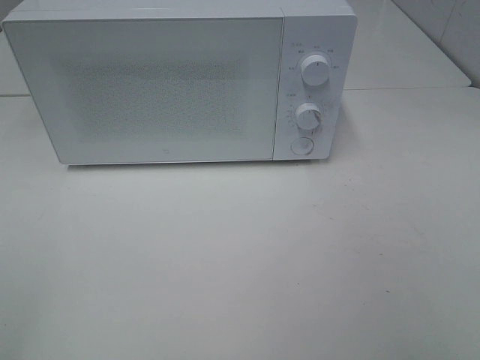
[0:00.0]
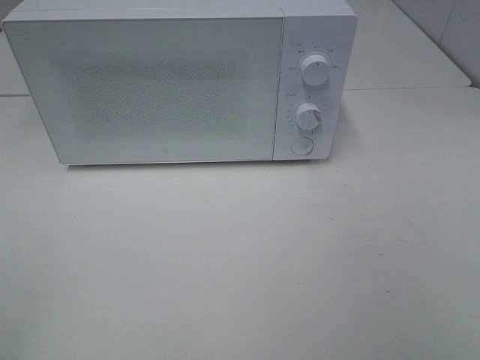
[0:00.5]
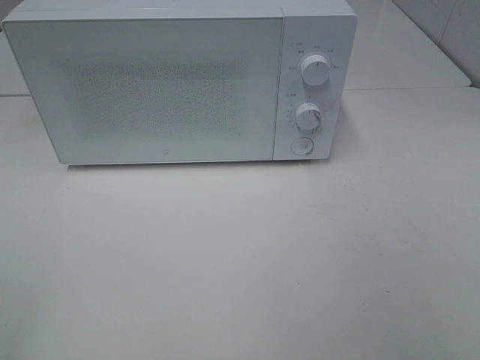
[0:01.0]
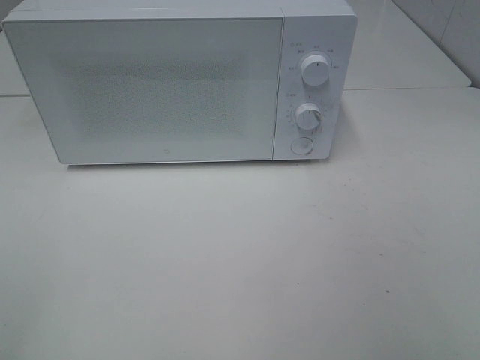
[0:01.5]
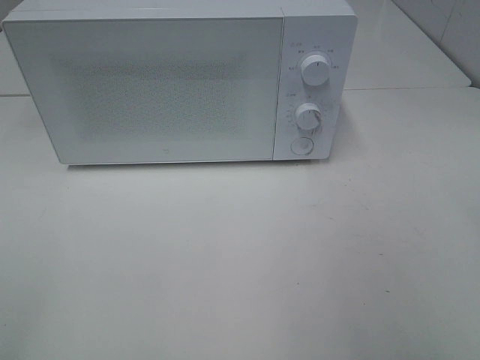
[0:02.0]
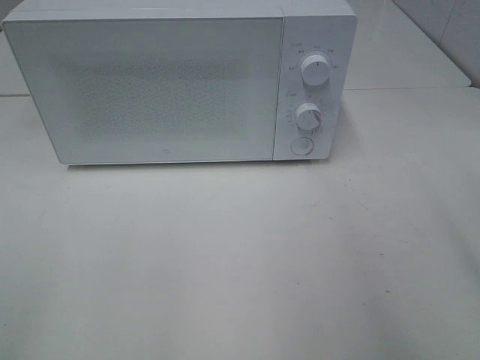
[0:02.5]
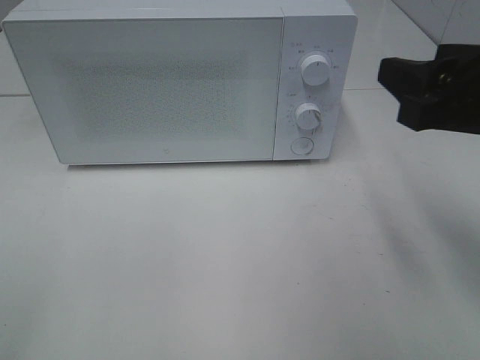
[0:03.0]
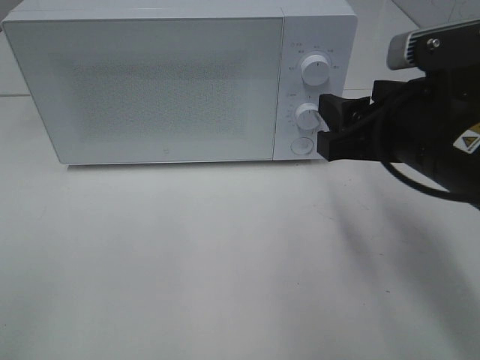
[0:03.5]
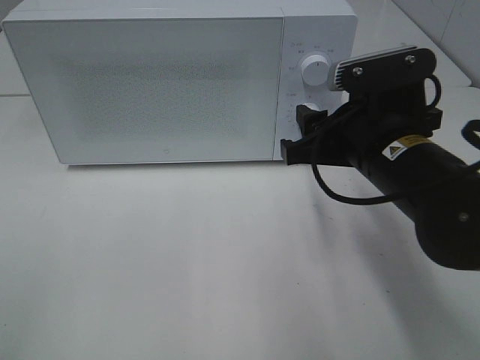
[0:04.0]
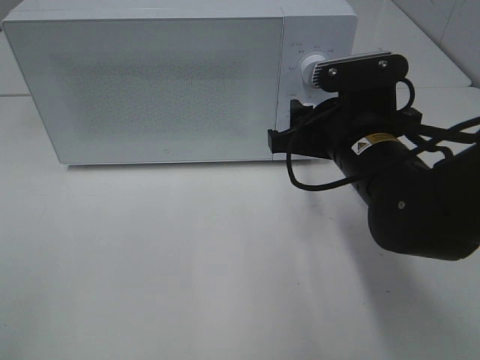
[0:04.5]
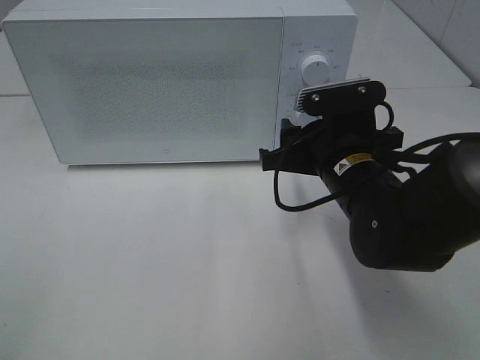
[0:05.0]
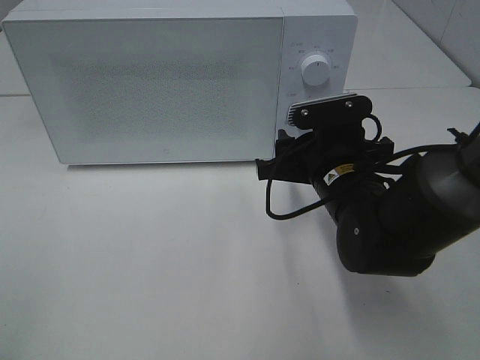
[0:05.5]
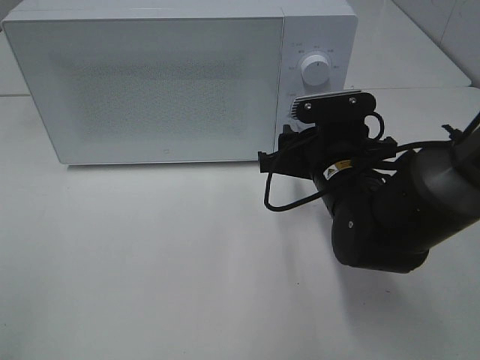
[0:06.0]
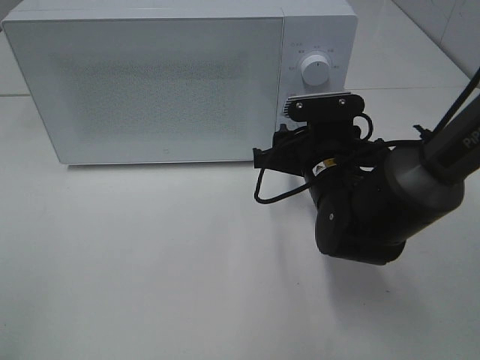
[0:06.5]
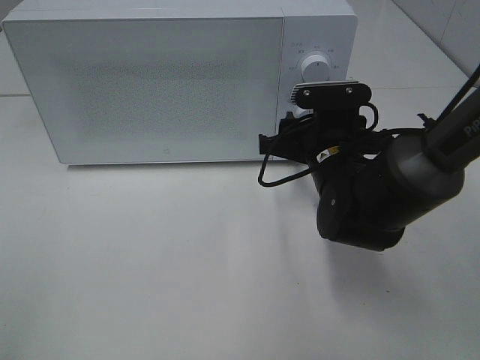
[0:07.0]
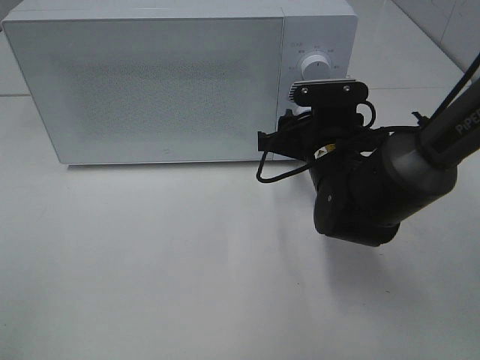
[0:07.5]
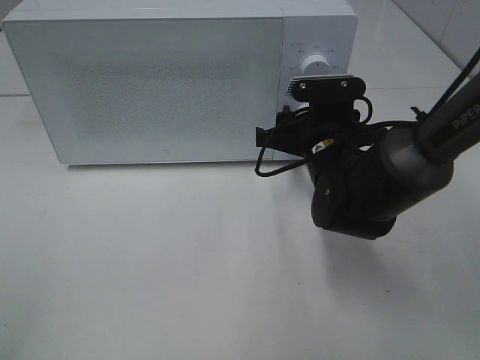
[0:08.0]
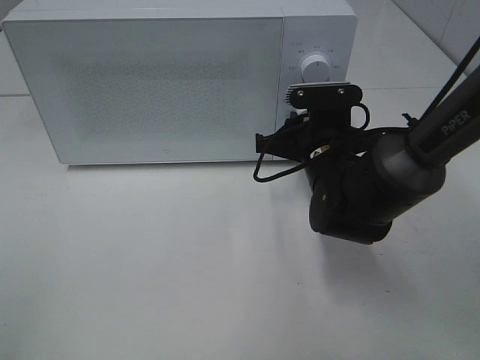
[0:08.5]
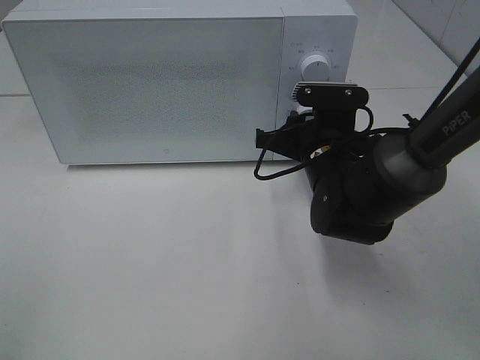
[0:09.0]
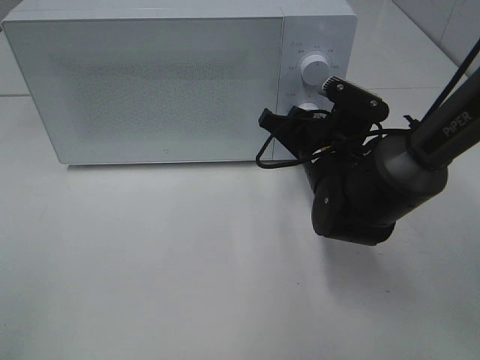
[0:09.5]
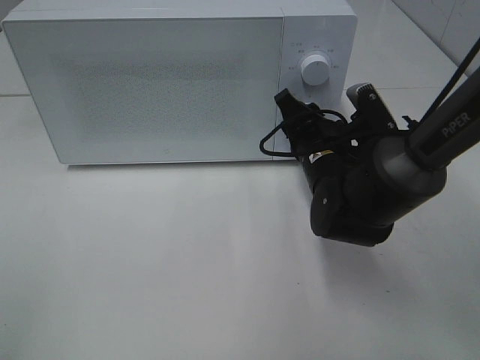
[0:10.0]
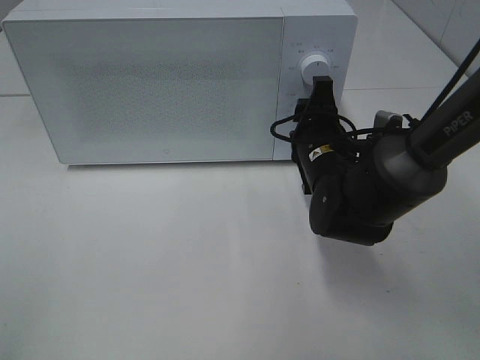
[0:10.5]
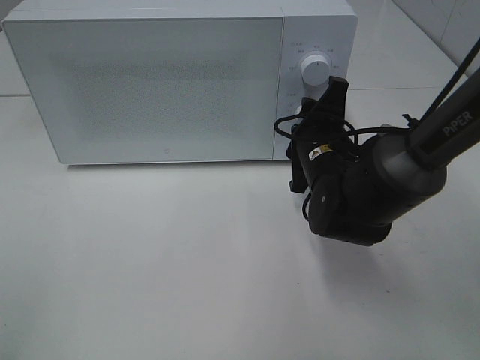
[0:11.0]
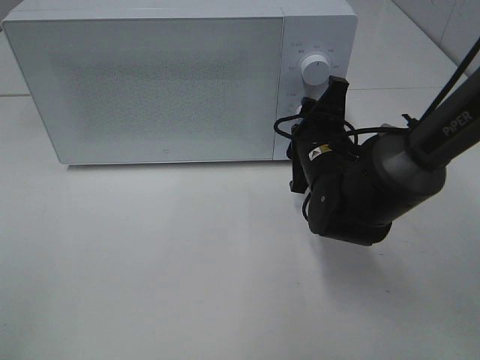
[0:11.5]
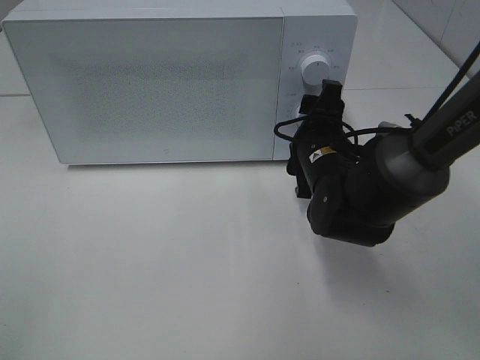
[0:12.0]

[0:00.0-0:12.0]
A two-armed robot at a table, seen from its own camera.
Task of the whole recording: Heat Sandwich.
0:02.0 to 0:04.0: The right gripper heads forward, to the left and downward, covering approximately 25 cm.
0:04.0 to 0:06.0: The right gripper heads downward, covering some 5 cm.
0:06.0 to 0:08.0: The grippers move only a little.
0:10.0 to 0:12.0: The right gripper opens.

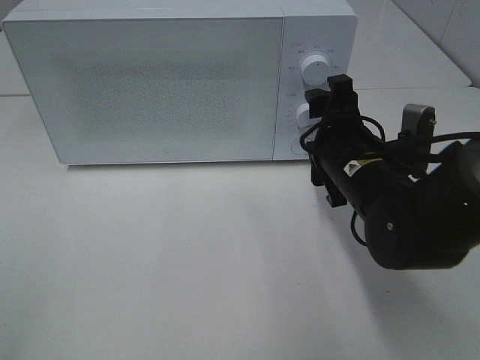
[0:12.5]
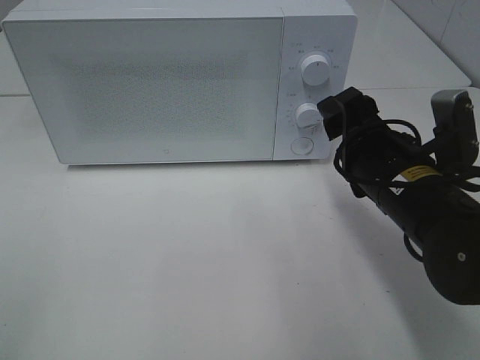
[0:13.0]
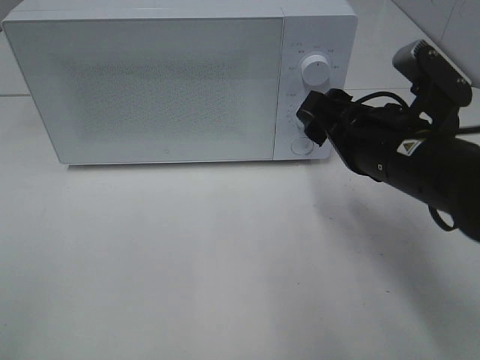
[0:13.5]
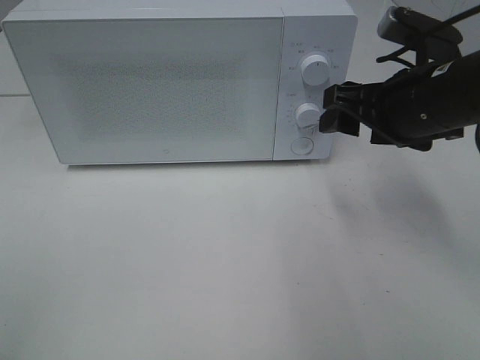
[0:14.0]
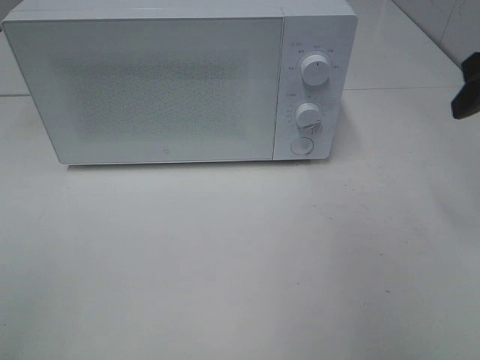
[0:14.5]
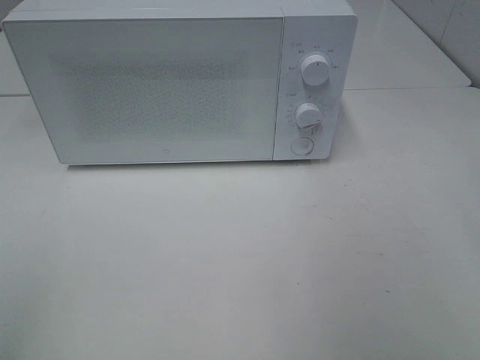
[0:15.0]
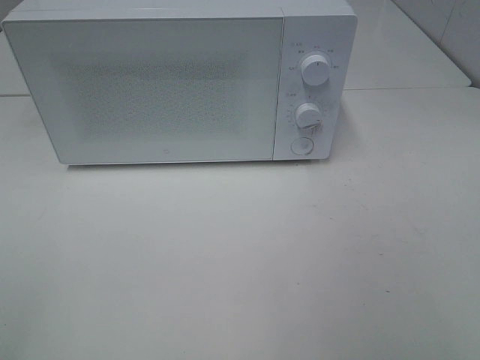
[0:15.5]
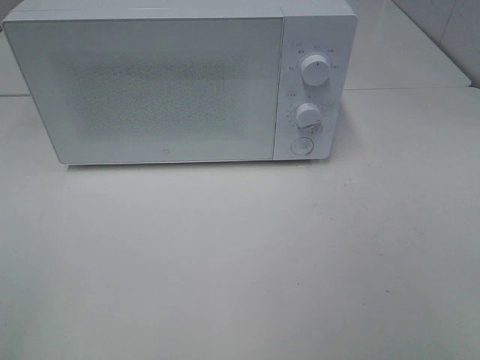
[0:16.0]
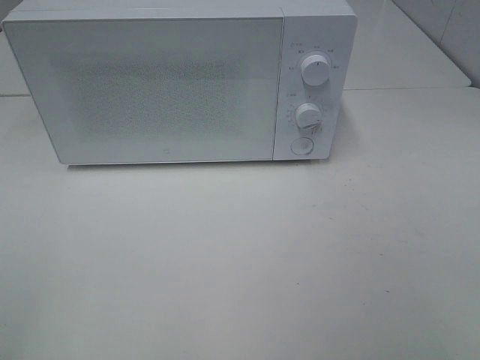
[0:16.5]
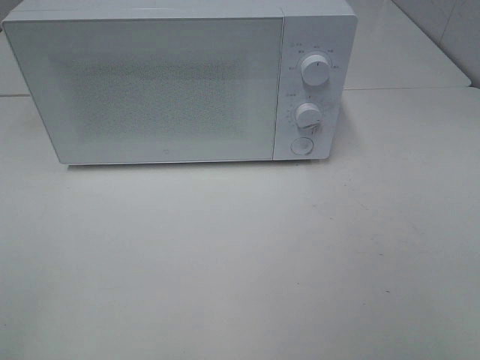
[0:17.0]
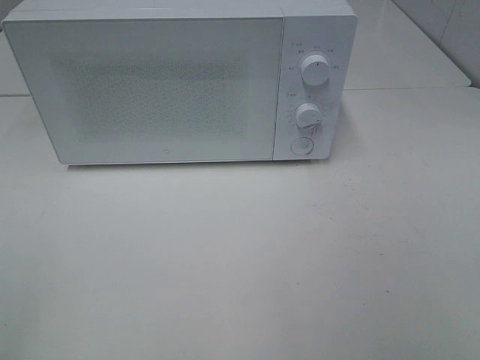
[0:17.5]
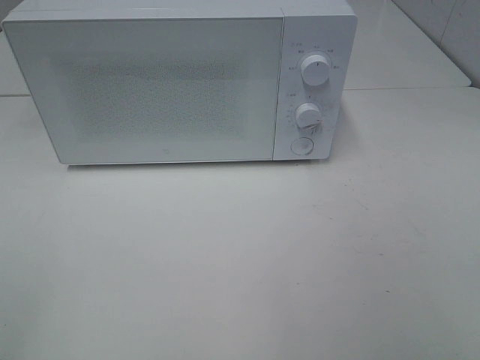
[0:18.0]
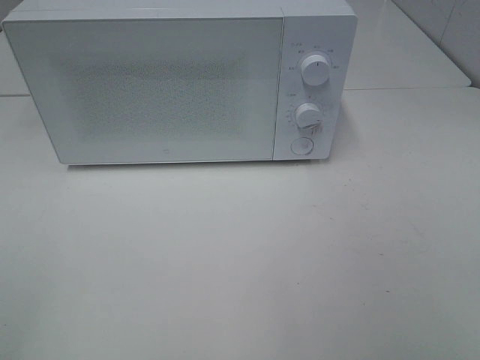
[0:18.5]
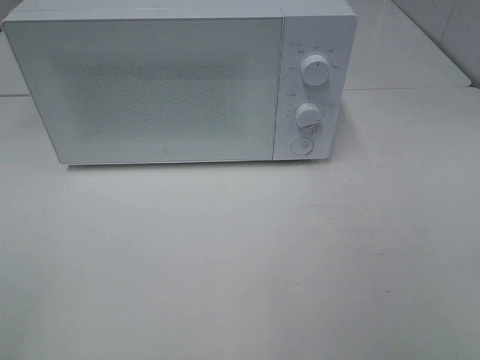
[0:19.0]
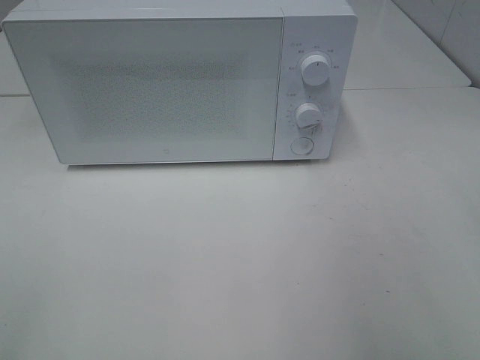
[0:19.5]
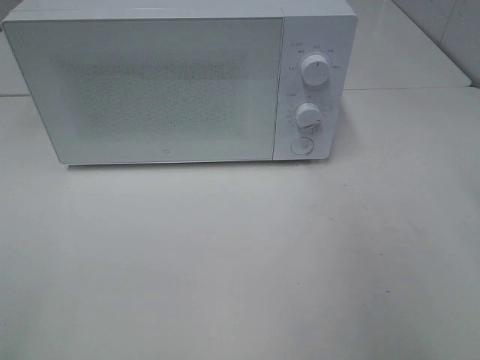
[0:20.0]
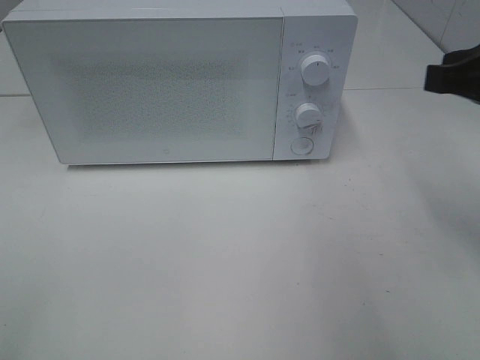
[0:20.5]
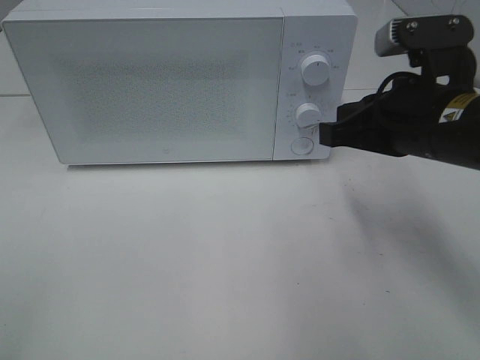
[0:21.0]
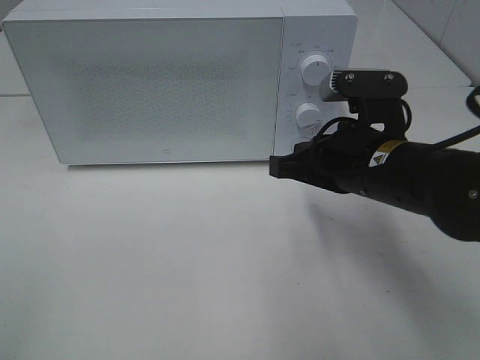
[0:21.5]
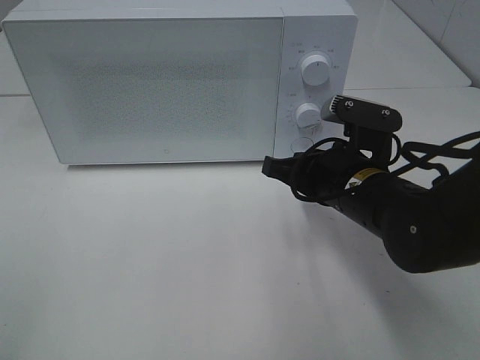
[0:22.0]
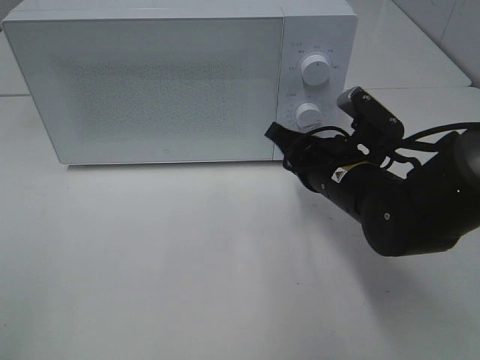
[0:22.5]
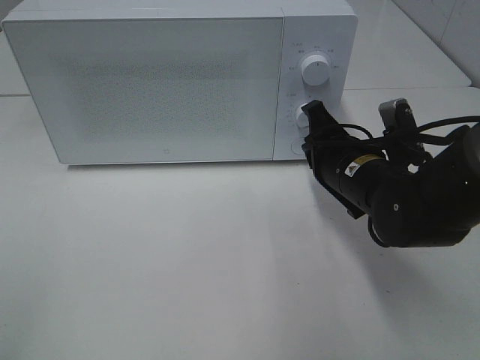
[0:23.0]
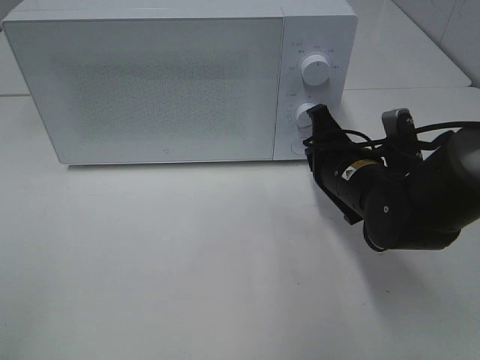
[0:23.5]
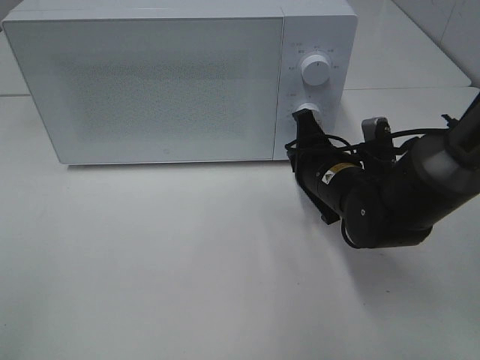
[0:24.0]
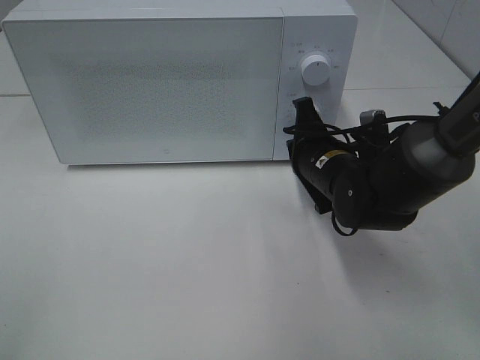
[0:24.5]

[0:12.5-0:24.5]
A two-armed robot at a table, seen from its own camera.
Task of the whole recording: Heat Sandwich.
0:12.5 to 0:14.5: The right gripper travels to the right and upward by about 20 cm.
0:14.5 to 0:16.5: The right gripper goes some 25 cm backward.
0:16.5 to 0:18.5: Neither gripper changes place.
0:18.5 to 0:20.5: The right gripper heads forward, covering roughly 20 cm, and closes up.
0:20.5 to 0:22.5: The right gripper is displaced downward, to the left and forward by approximately 20 cm.
0:22.5 to 0:24.5: The right gripper changes place by roughly 5 cm.

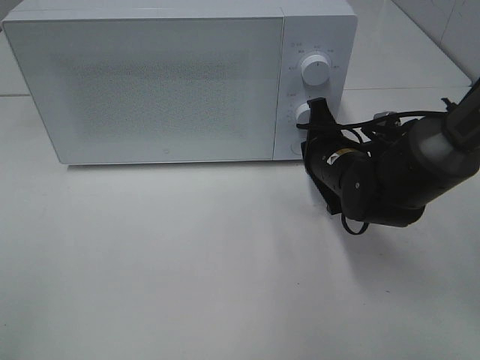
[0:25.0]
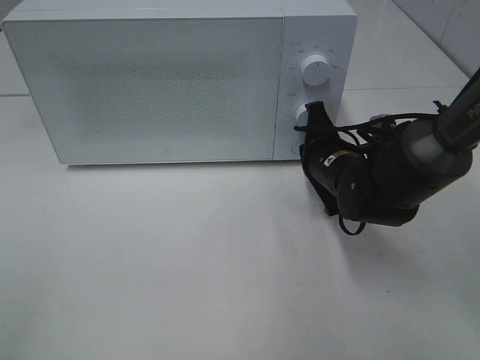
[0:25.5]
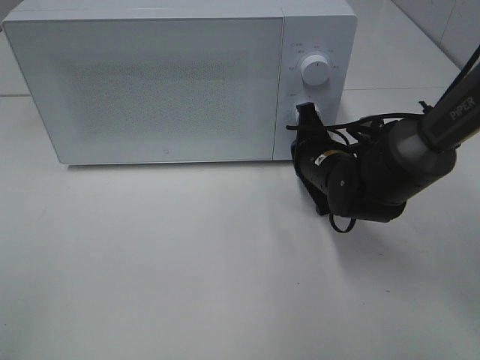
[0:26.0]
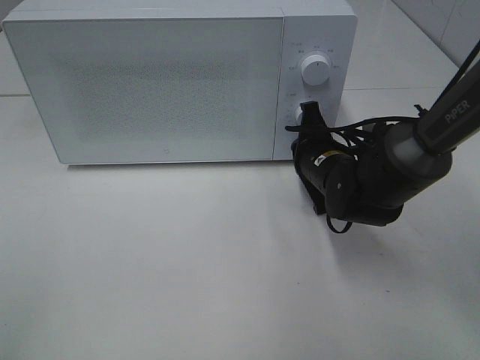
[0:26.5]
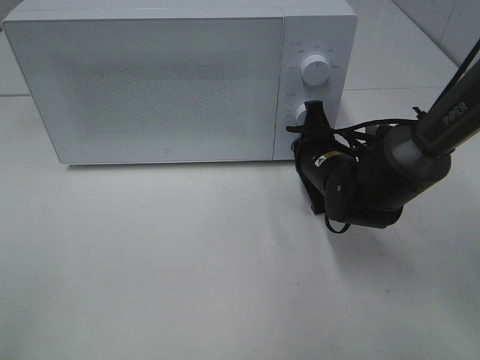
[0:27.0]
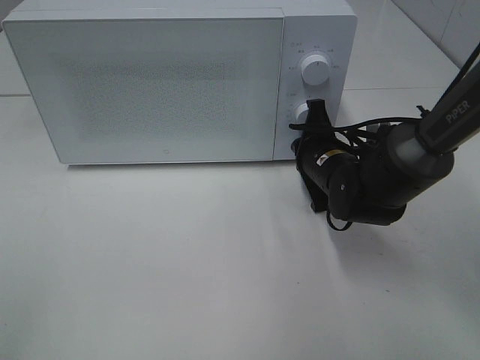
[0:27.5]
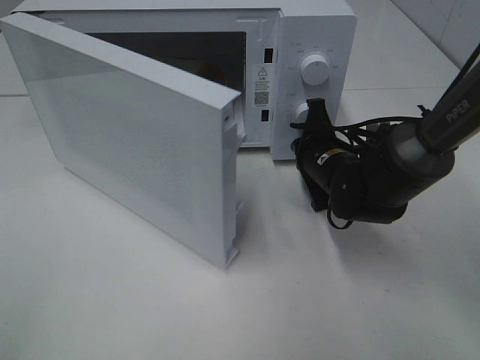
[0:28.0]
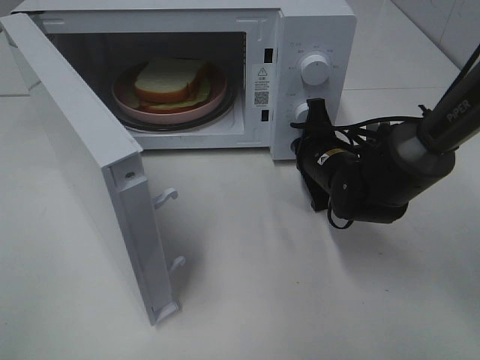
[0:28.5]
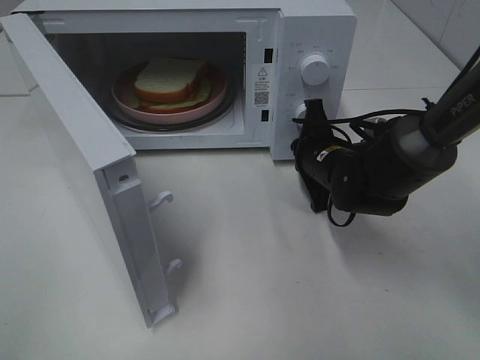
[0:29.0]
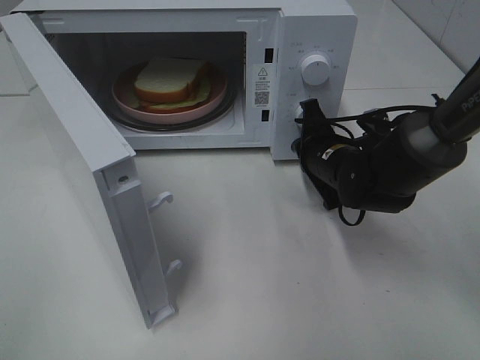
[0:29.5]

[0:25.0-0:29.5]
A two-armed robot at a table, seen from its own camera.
Task of the whole recording: Heat Sandwich.
0:25.0 to 0:27.0: The grippers stay close to where they were, moving slightly.
